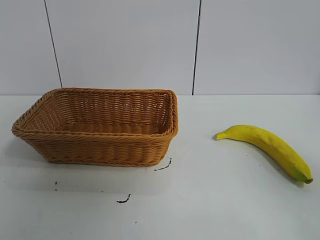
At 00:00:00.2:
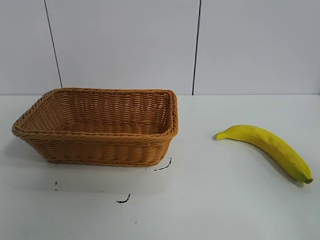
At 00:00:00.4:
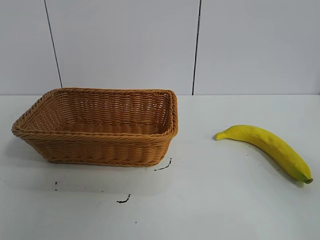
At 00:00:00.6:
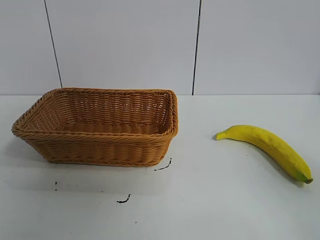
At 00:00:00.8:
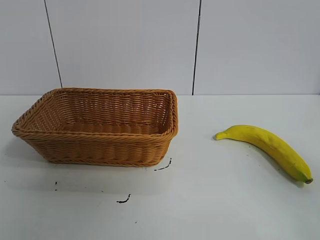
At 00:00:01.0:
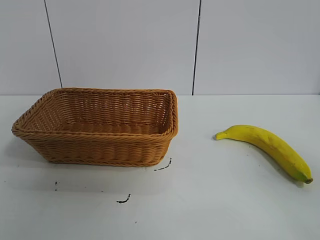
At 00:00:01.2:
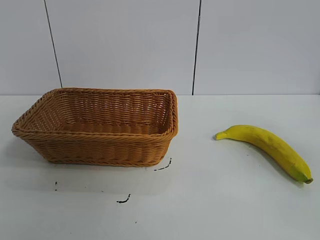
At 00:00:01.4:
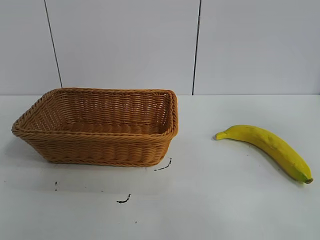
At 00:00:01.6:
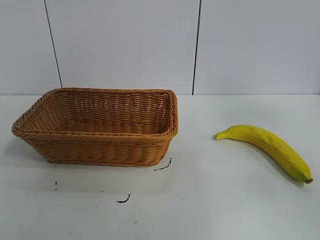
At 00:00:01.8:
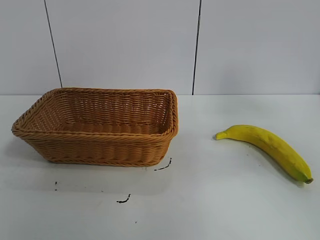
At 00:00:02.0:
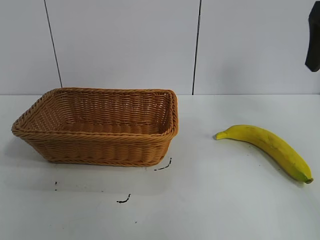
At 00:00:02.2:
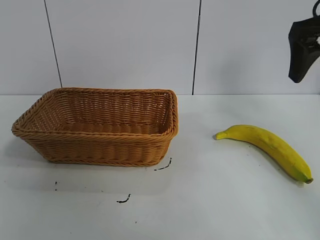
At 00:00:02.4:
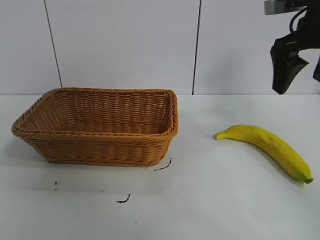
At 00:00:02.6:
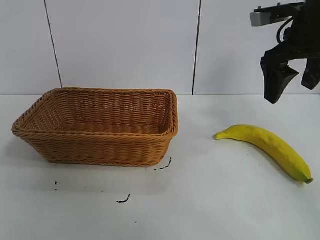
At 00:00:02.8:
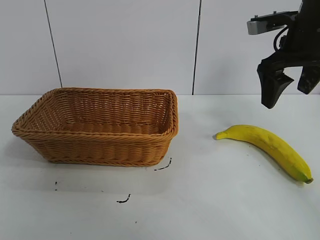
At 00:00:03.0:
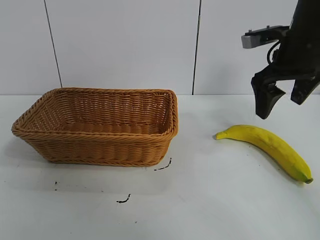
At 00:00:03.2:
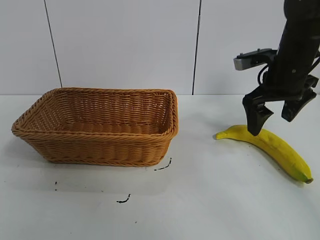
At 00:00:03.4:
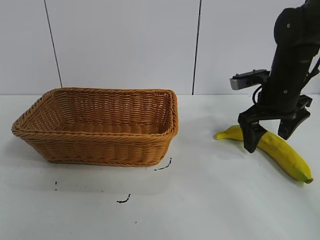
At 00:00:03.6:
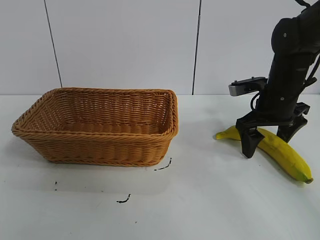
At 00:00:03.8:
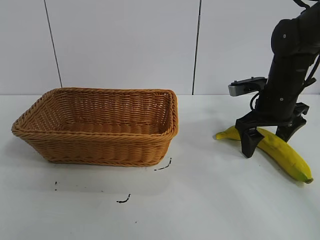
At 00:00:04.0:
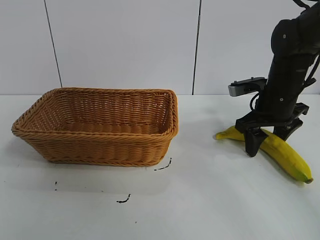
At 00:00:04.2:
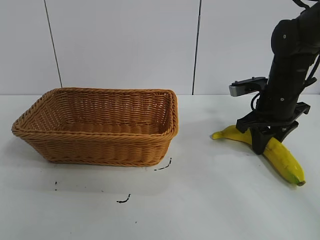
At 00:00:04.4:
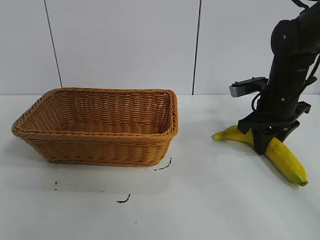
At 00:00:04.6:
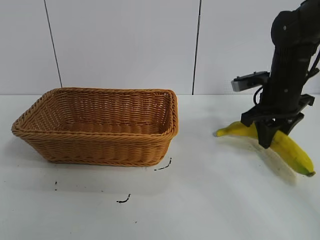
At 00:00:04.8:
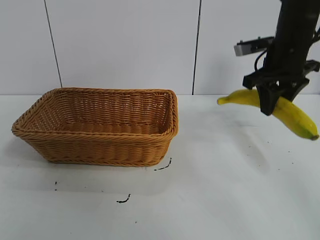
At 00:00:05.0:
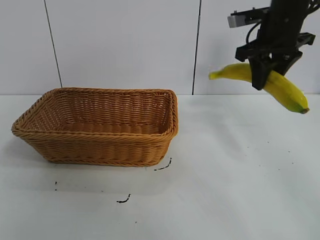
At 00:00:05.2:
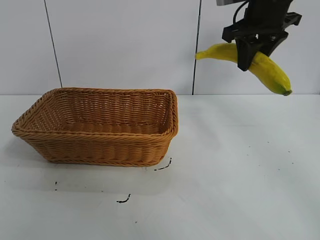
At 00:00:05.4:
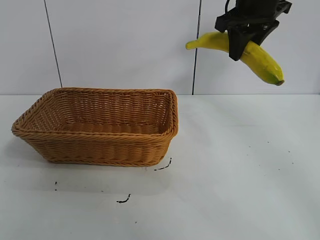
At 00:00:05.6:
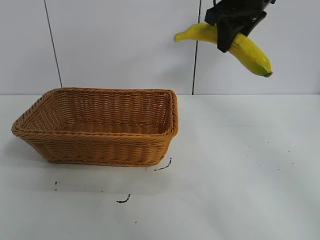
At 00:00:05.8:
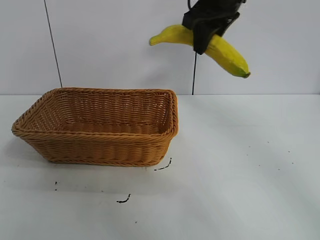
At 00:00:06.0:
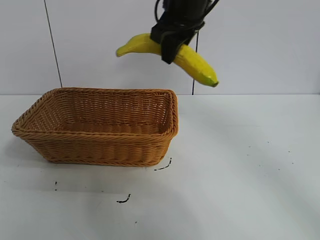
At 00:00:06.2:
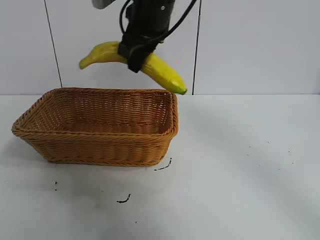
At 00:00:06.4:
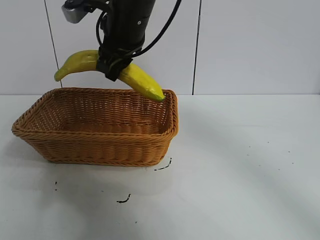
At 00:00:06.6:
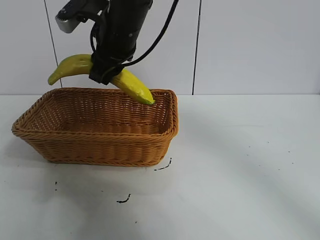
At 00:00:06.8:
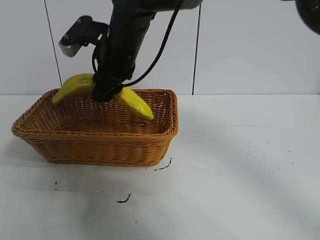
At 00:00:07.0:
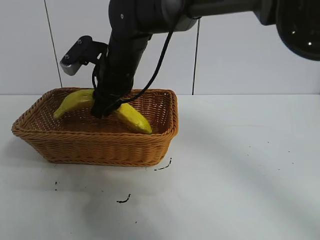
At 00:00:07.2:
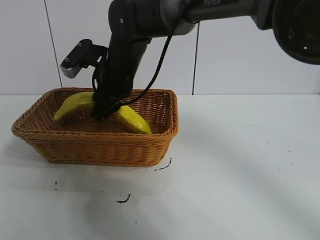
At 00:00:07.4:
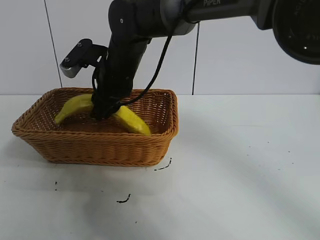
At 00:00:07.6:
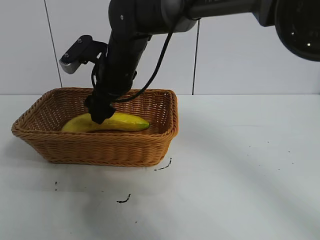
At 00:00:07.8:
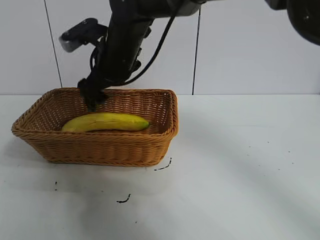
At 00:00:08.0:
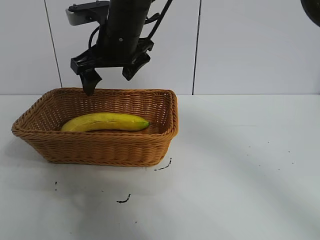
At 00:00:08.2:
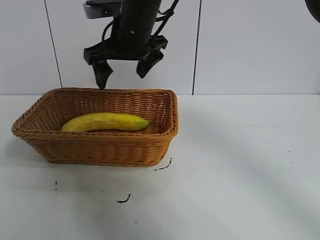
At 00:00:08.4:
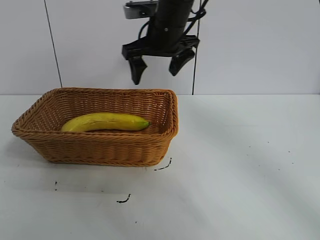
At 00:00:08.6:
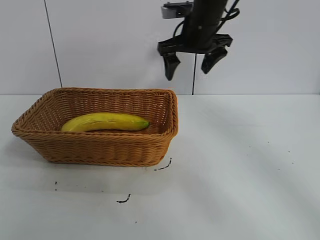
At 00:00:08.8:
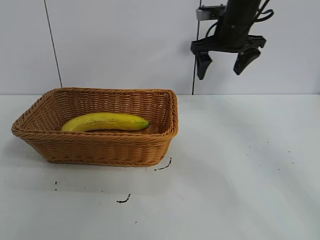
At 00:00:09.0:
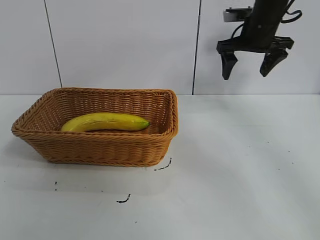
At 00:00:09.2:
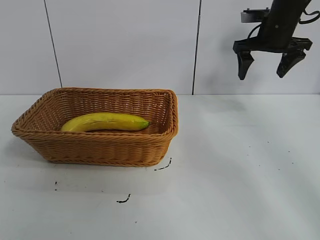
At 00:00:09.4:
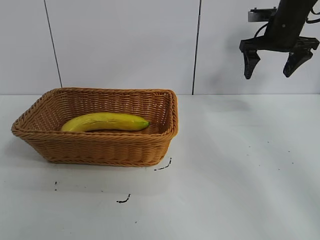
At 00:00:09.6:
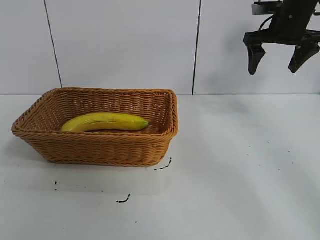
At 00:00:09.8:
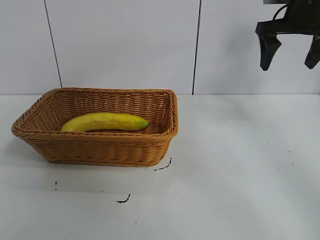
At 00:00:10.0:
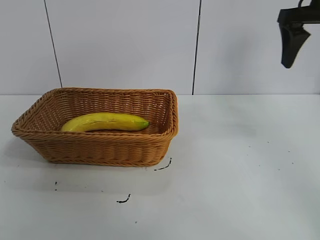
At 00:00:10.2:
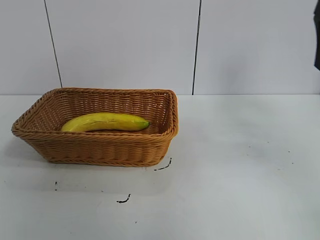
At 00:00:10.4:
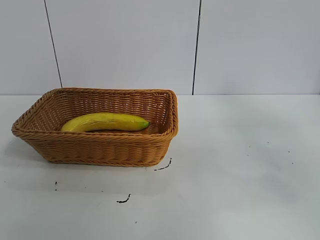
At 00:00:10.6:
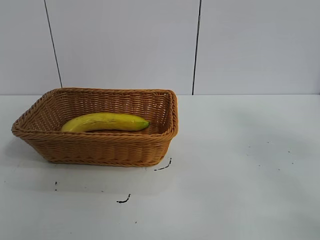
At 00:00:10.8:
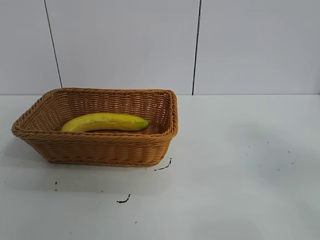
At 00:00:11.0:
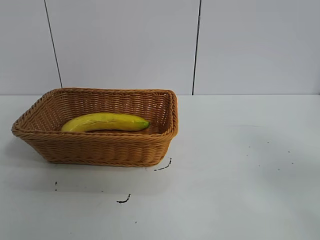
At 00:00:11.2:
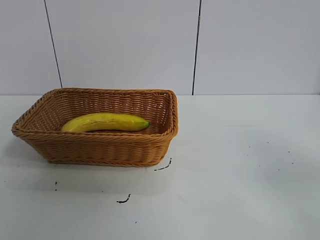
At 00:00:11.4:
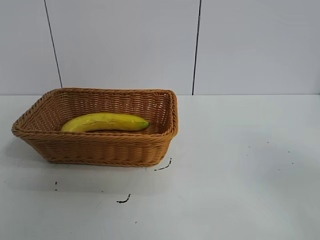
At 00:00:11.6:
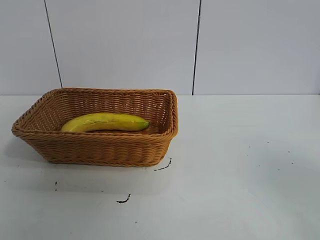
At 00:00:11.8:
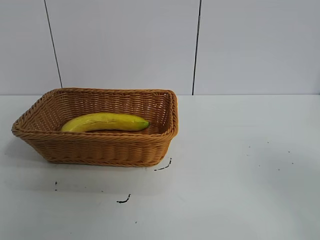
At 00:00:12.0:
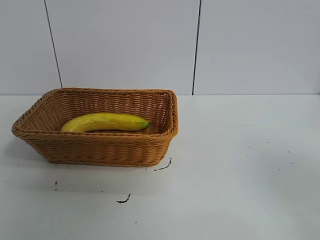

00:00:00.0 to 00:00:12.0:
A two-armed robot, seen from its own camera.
Task of the whole recording: pick up the banana and put it into the basket.
Step, 00:00:00.8 to 00:00:04.0: Grasp the banana with right gripper.
Step, 00:00:04.4 to 00:00:07.8: Place the banana in the basket with right gripper.

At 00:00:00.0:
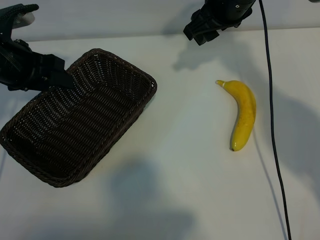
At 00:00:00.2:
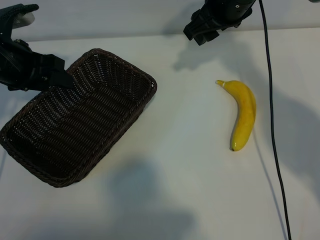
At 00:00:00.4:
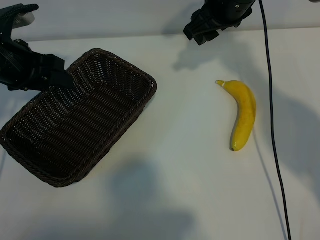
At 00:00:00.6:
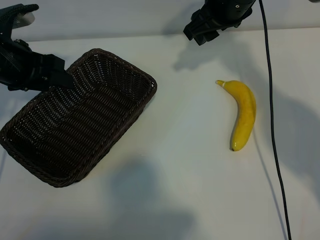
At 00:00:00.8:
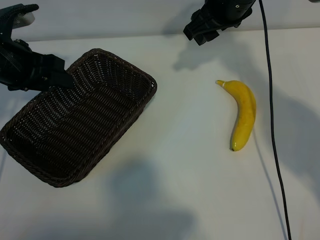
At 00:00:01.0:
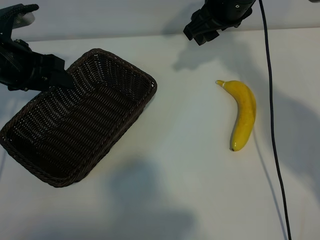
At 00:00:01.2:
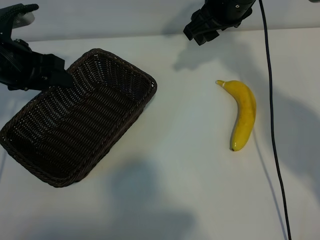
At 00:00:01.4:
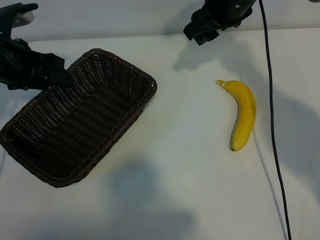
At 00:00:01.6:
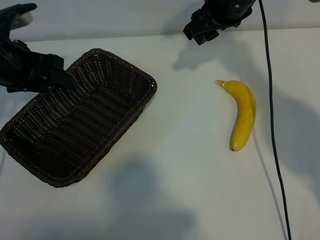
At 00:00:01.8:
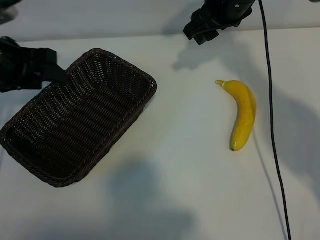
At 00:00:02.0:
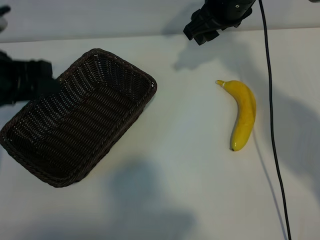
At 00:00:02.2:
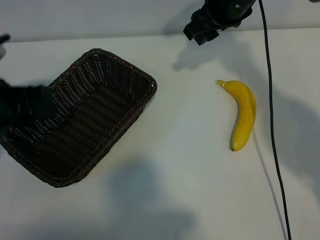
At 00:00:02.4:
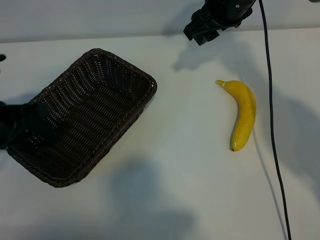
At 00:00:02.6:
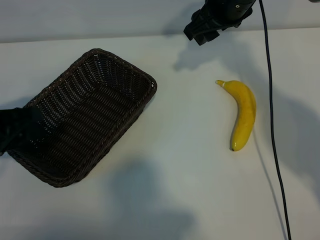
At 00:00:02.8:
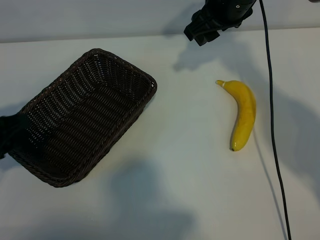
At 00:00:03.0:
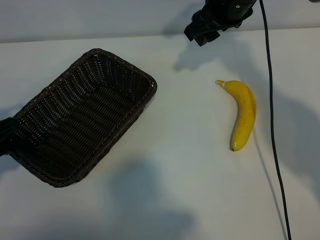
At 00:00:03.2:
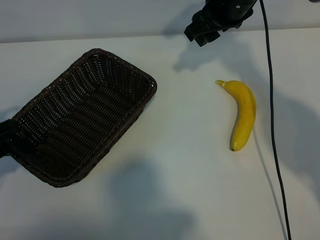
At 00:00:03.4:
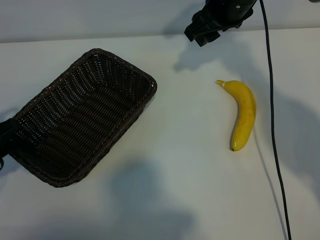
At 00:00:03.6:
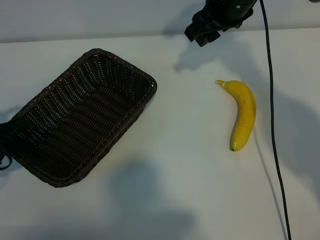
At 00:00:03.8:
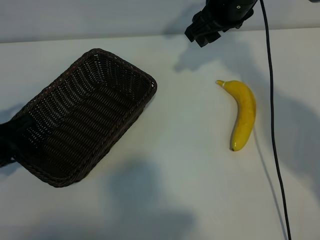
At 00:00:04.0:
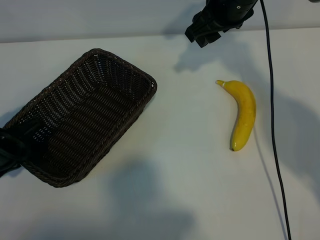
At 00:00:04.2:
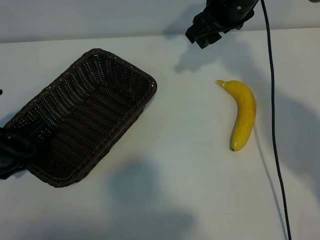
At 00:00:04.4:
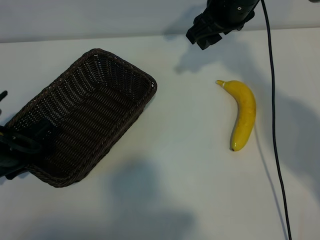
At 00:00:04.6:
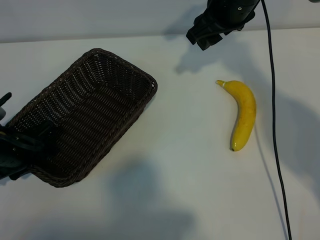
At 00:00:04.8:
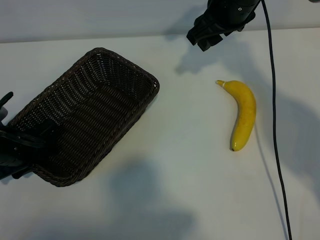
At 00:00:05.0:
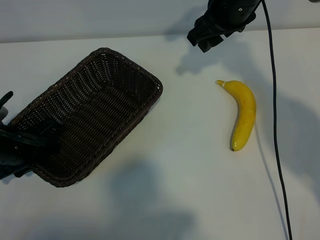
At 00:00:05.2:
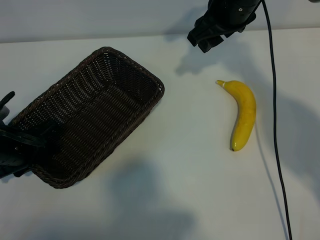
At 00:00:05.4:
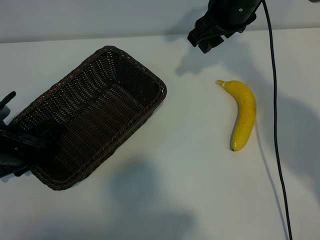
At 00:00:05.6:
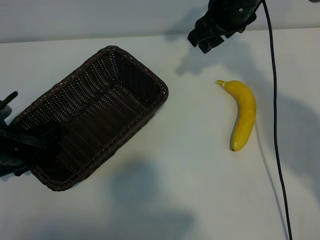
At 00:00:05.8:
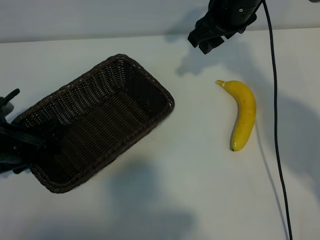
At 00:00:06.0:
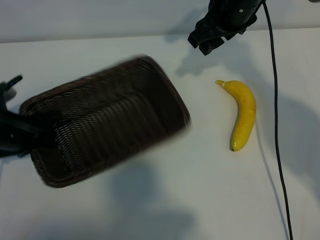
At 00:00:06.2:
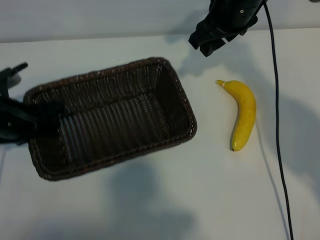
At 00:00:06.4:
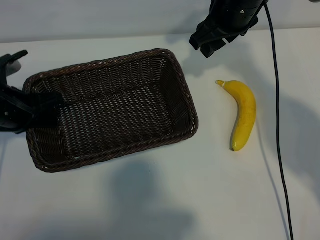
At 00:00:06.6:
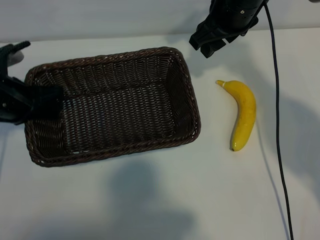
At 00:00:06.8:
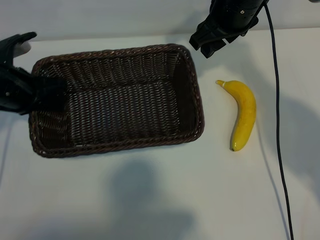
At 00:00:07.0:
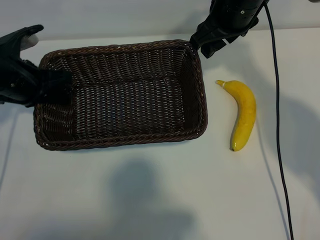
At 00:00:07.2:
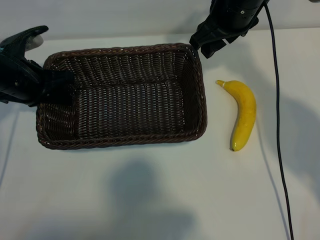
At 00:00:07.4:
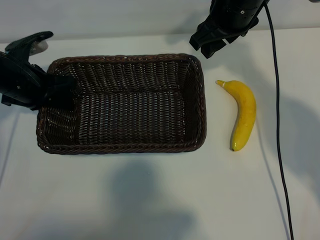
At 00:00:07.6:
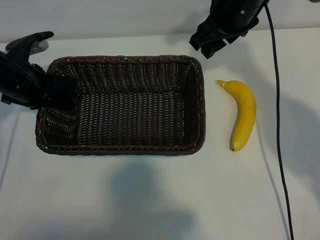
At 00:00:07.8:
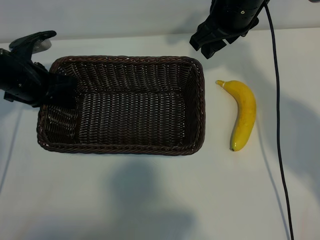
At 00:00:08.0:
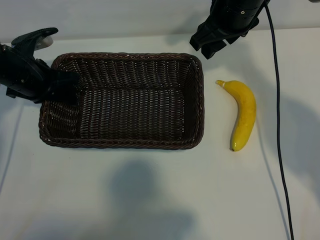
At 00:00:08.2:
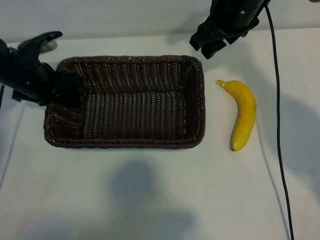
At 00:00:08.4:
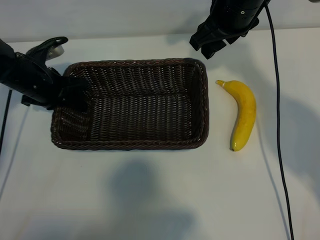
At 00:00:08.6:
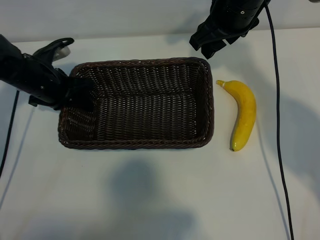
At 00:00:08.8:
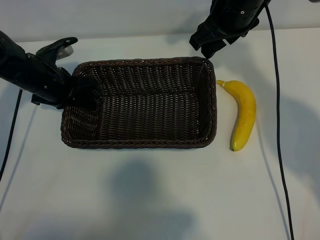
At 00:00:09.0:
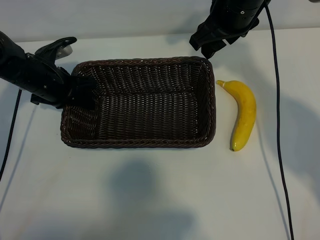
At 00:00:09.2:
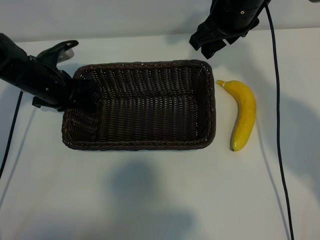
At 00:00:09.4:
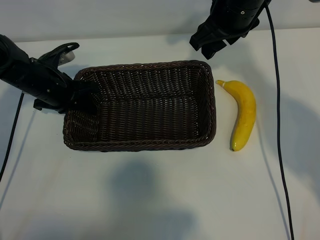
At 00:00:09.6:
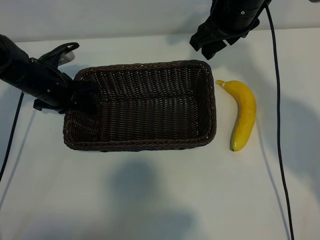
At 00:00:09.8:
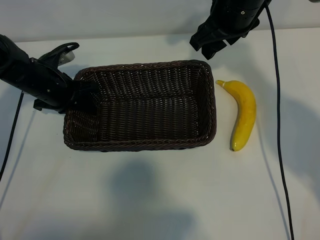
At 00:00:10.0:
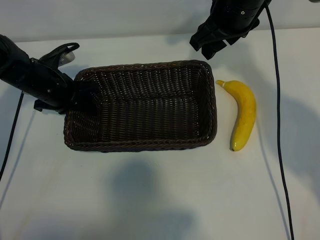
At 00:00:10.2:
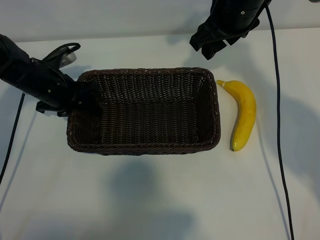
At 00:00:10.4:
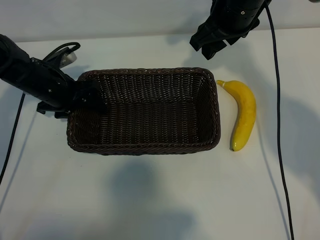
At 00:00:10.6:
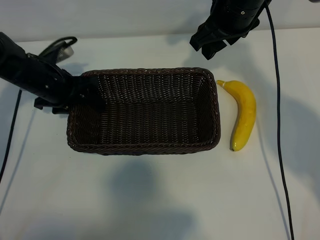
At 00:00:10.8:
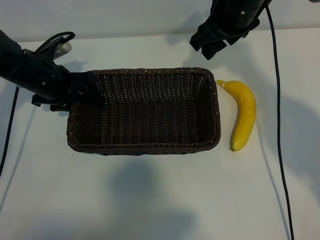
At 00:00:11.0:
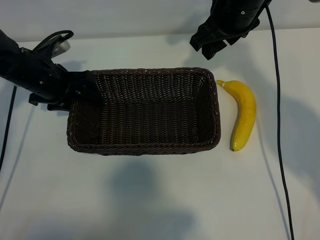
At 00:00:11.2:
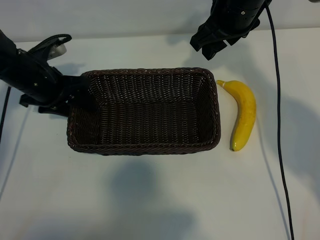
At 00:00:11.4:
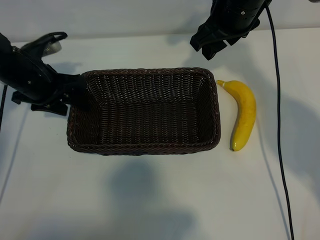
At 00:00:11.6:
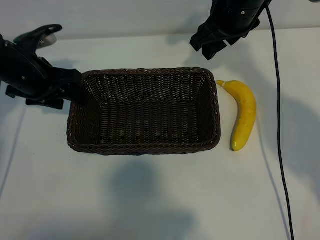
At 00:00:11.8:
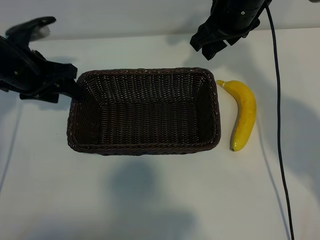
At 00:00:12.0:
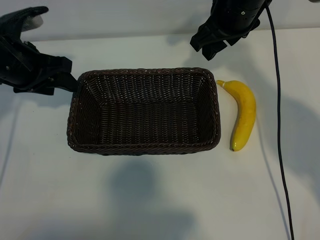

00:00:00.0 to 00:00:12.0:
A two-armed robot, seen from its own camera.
Task of the whole recording: pick up the banana and put it into the basket.
Step, 00:00:01.2 to 00:00:05.8: Grasp the basket with the left gripper.
Step, 00:00:06.0 to 00:00:11.2: Place the basket in the center of the table with the left gripper.
